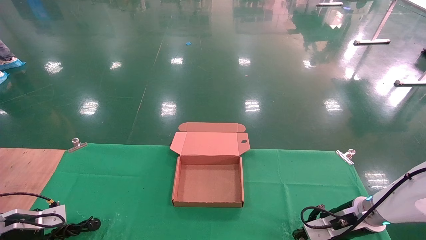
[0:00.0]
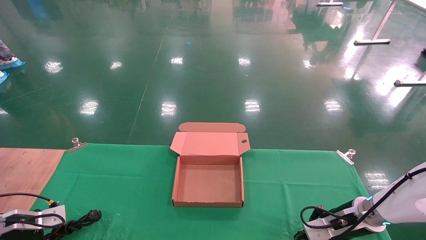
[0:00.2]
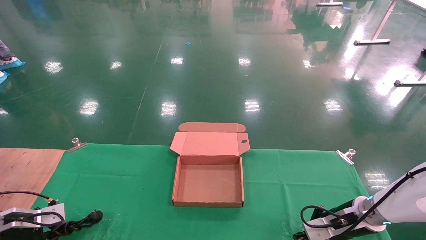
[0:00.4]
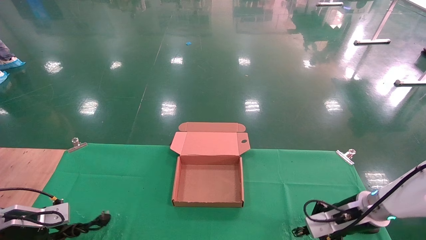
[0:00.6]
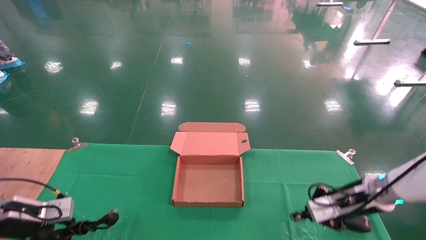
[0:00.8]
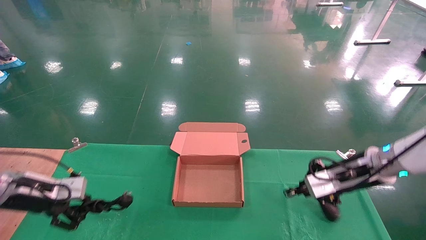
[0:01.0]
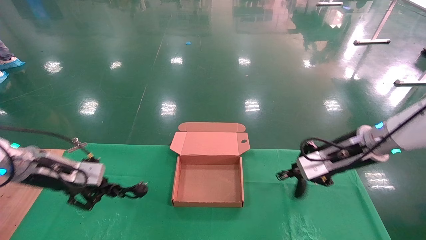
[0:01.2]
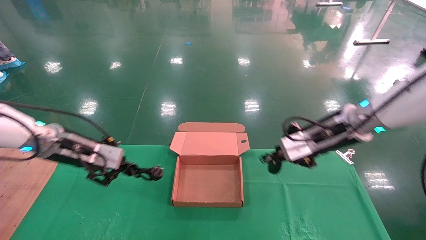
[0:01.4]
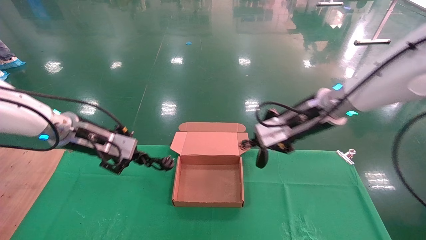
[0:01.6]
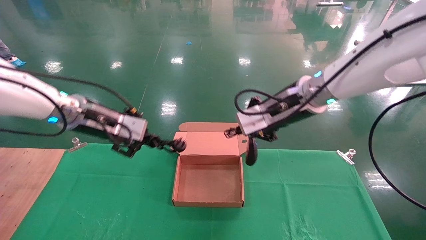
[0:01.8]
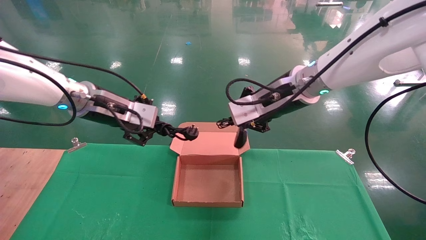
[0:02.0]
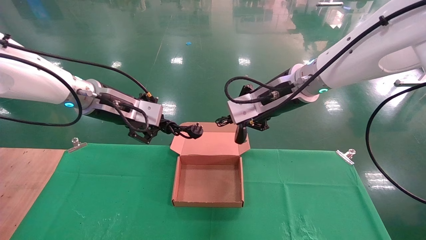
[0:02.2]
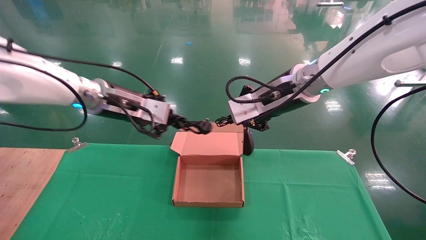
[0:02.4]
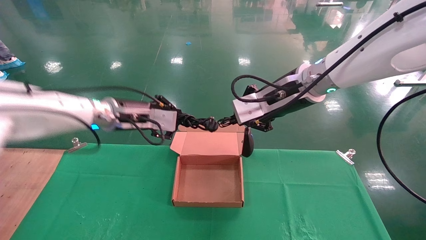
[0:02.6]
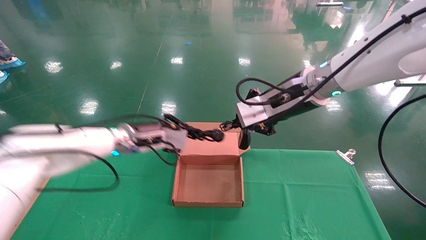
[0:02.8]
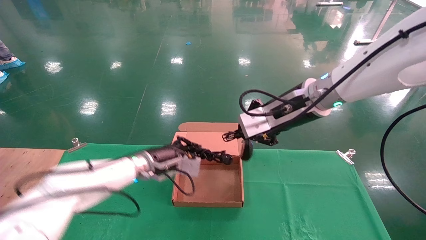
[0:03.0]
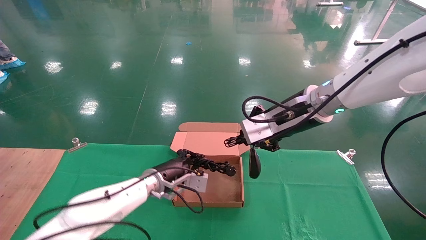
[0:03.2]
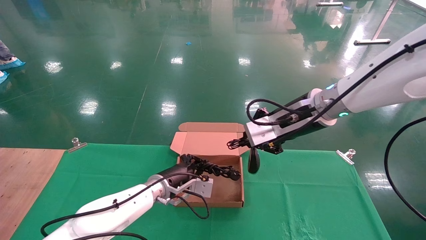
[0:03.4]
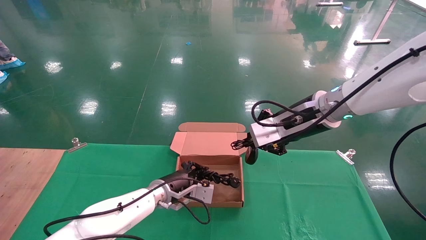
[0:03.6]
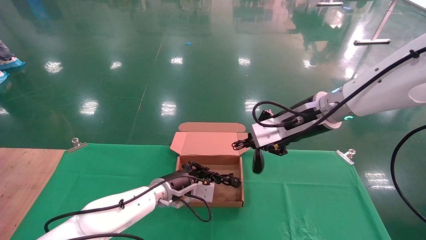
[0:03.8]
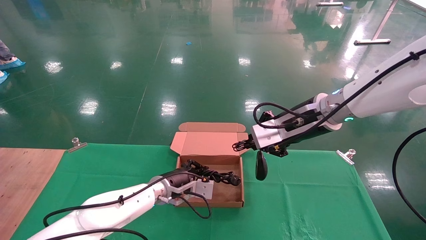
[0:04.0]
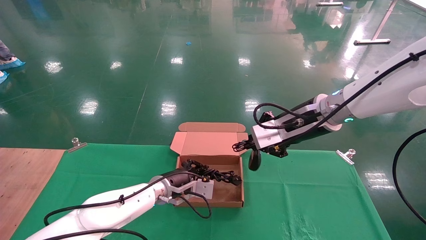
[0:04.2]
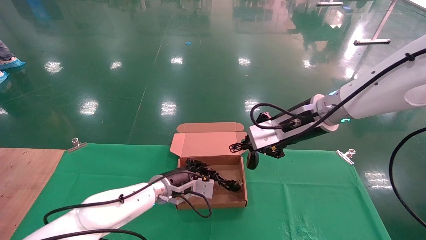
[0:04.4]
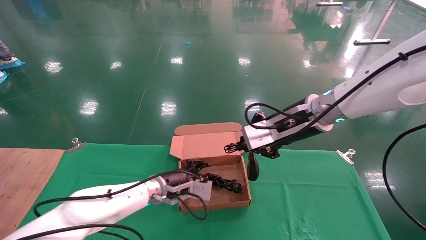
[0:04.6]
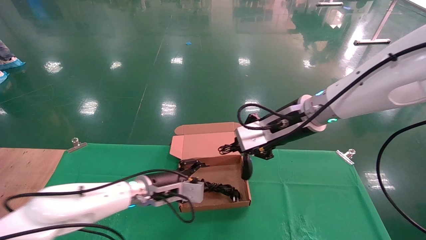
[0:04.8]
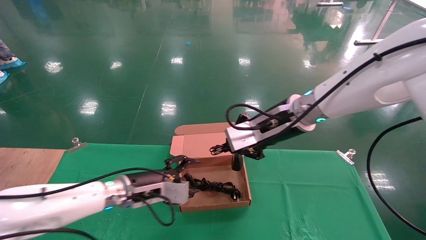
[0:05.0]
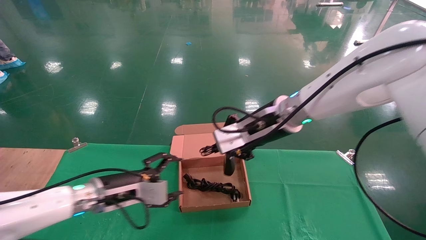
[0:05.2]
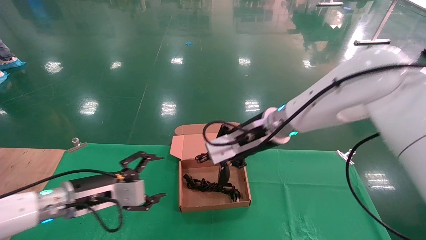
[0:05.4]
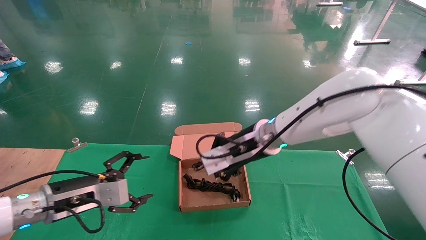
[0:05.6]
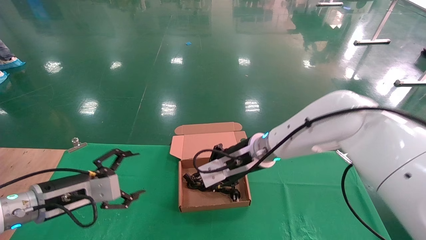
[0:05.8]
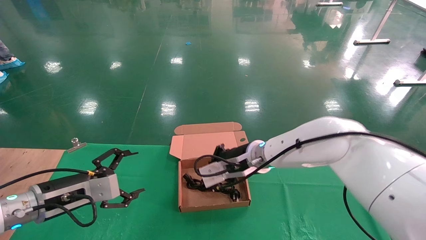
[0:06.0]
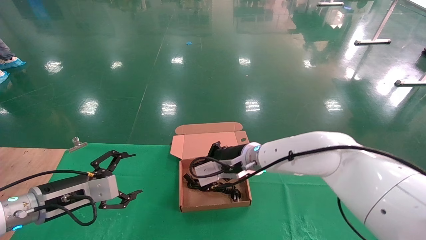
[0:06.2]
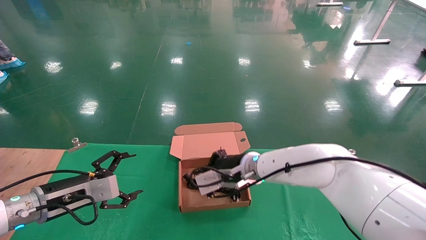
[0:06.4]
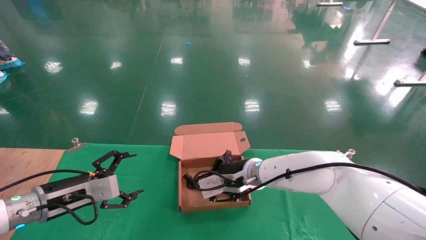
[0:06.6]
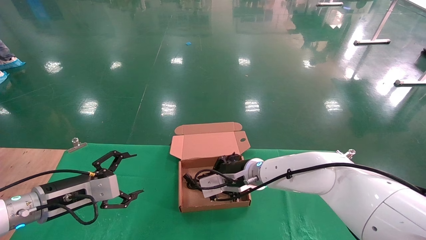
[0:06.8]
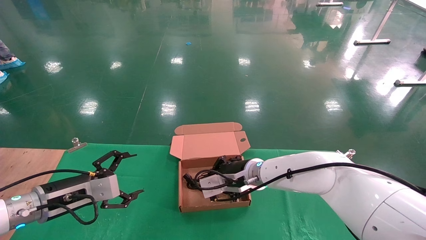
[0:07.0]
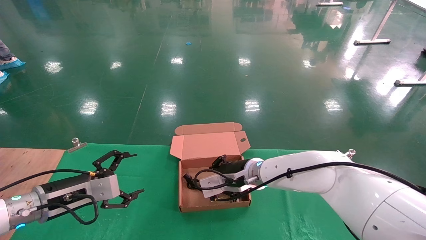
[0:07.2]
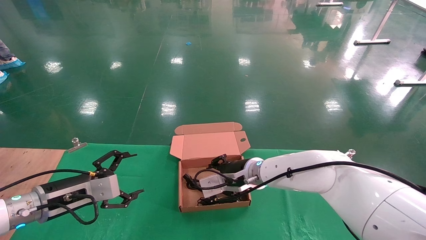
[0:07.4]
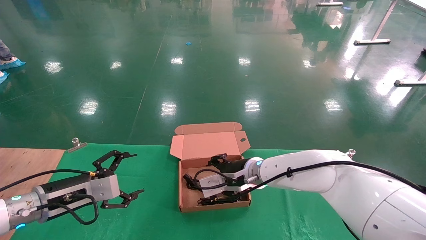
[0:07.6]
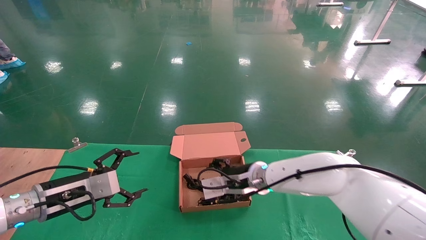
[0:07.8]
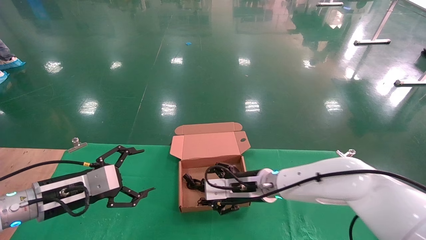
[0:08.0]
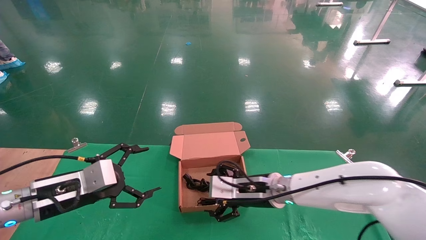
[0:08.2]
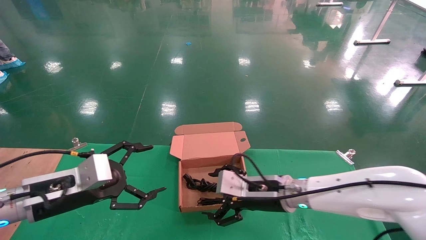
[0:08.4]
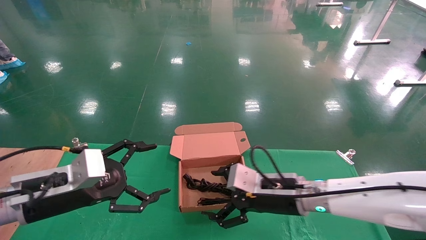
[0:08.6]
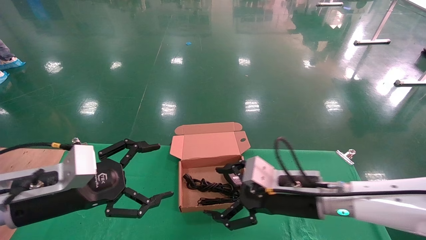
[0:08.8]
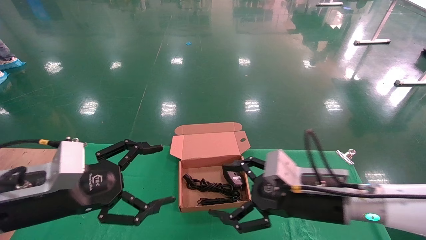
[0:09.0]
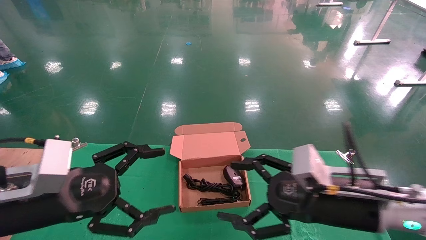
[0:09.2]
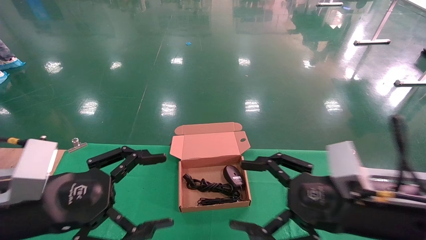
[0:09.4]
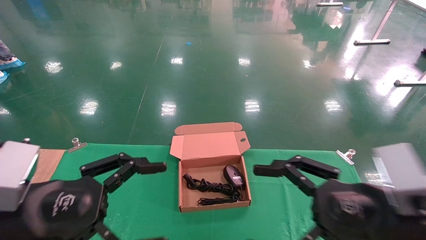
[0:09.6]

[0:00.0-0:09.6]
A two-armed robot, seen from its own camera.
Step, 0:01.4 to 0:06.4: Place the mouse and power cord into the box.
0:00.0 to 0:01.6: The left gripper moves upward and to the right, approximately 30 cm, and closes. The right gripper is displaced upward and to the left by approximately 30 cm, and closes.
0:01.6 to 0:03.2: The left gripper goes some 25 cm downward, to the right and forward.
0:03.2 to 0:04.8: The left gripper opens its fingers.
0:04.8 to 0:06.4: The right gripper moves downward, to the left and forward, some 20 cm. The left gripper moves to the left and backward, some 20 cm, and opens up.
0:06.4 to 0:08.0: The right gripper shifts by some 5 cm, and opens up.
0:08.0 to 0:09.6: The right gripper goes about 30 cm backward, to the right and upward, while the left gripper heads backward and upward, covering approximately 15 cm.
